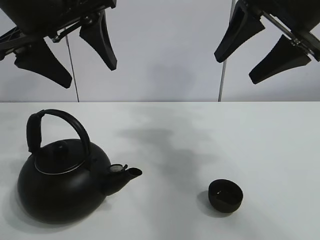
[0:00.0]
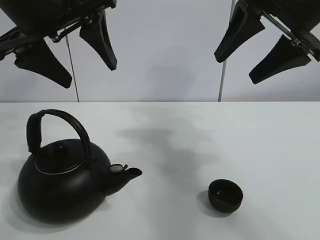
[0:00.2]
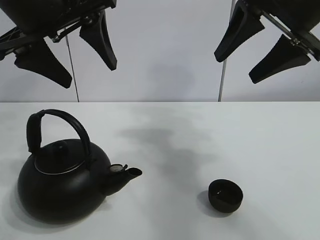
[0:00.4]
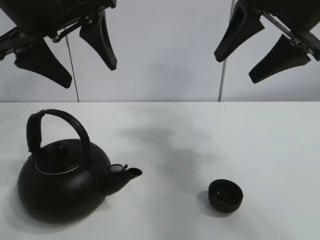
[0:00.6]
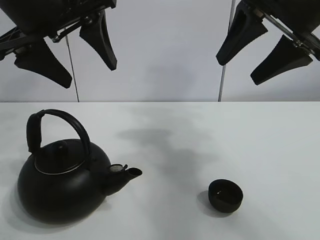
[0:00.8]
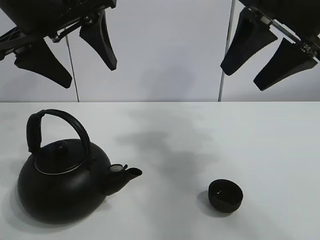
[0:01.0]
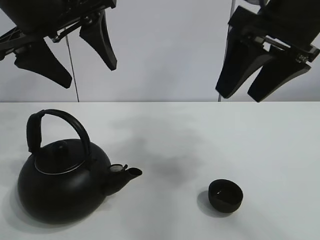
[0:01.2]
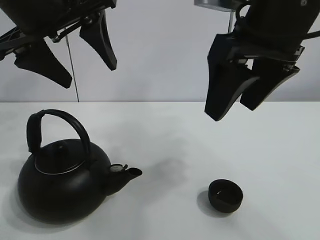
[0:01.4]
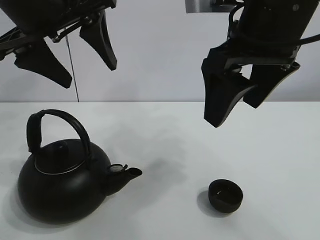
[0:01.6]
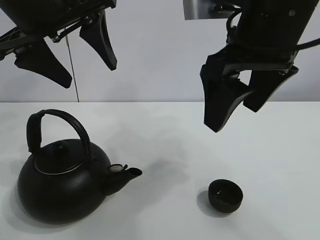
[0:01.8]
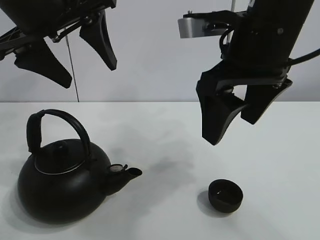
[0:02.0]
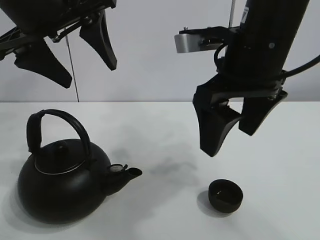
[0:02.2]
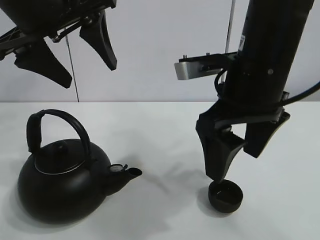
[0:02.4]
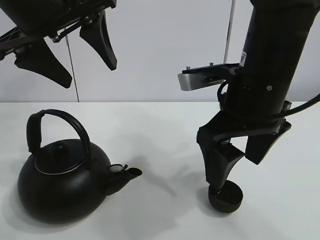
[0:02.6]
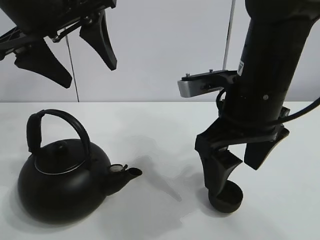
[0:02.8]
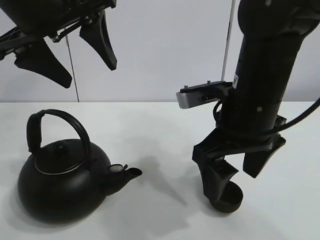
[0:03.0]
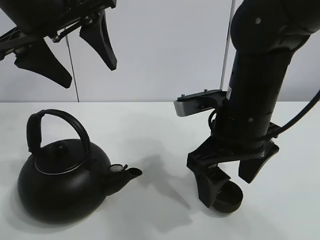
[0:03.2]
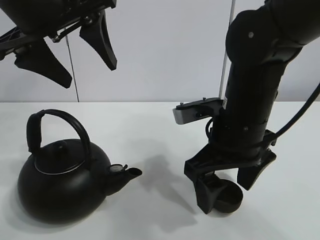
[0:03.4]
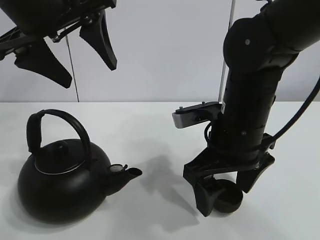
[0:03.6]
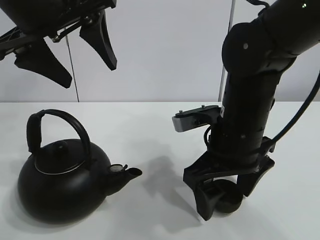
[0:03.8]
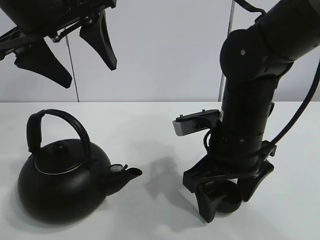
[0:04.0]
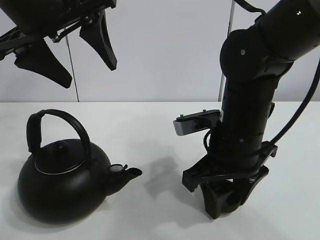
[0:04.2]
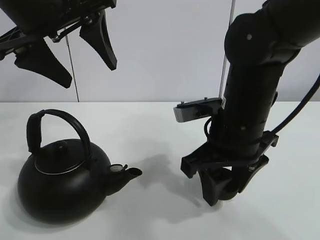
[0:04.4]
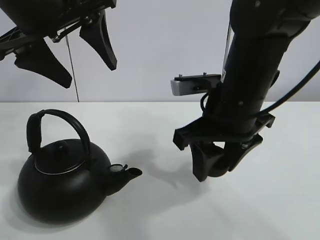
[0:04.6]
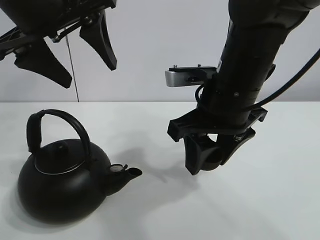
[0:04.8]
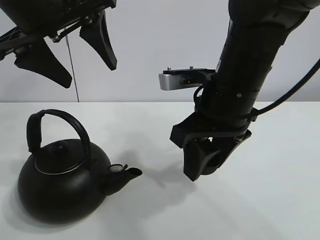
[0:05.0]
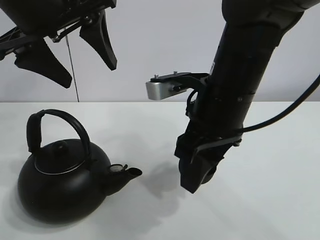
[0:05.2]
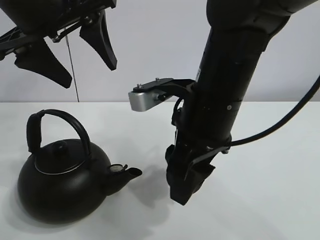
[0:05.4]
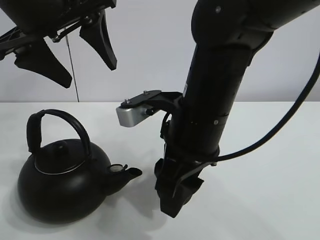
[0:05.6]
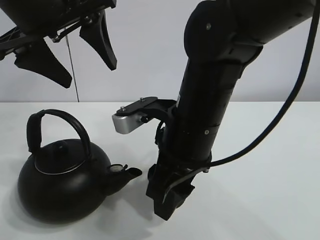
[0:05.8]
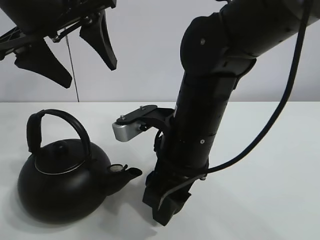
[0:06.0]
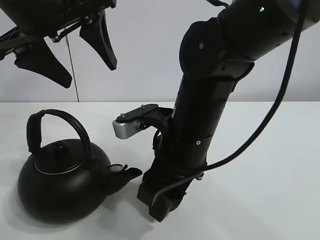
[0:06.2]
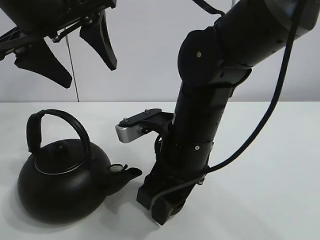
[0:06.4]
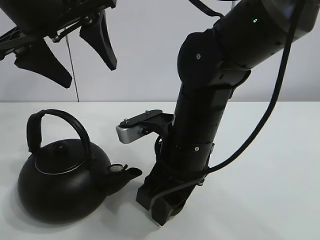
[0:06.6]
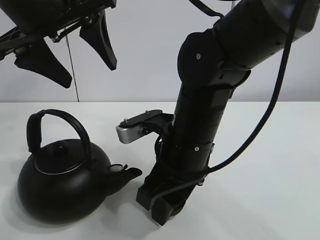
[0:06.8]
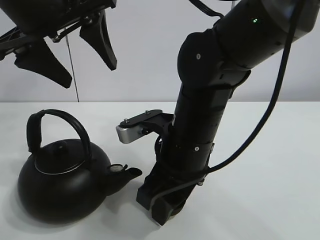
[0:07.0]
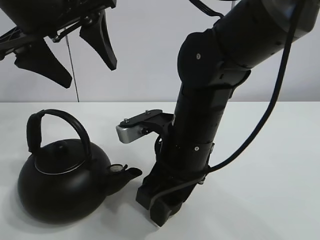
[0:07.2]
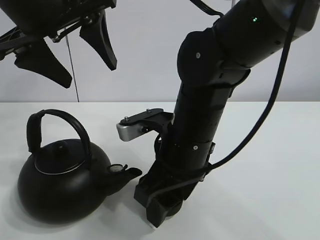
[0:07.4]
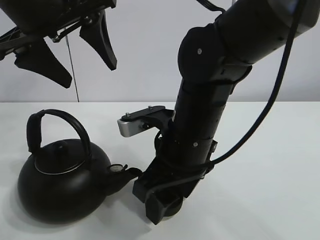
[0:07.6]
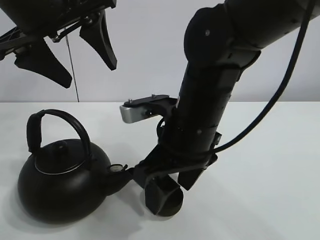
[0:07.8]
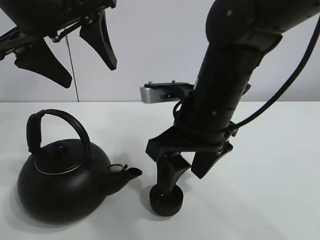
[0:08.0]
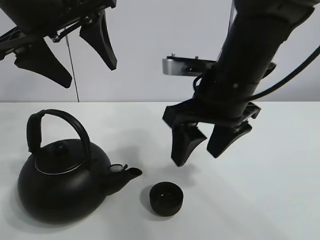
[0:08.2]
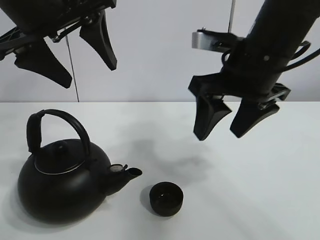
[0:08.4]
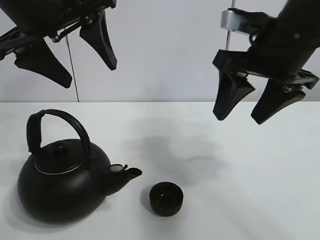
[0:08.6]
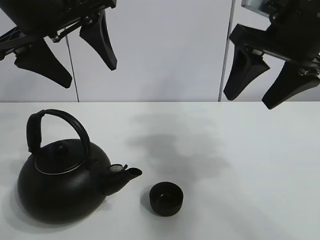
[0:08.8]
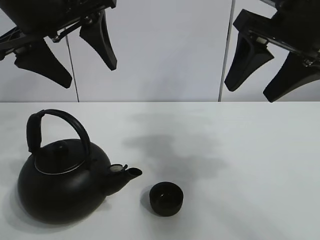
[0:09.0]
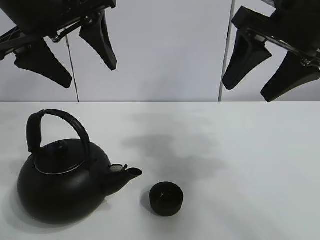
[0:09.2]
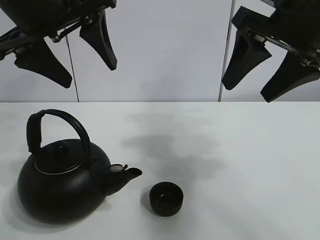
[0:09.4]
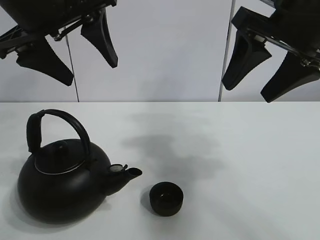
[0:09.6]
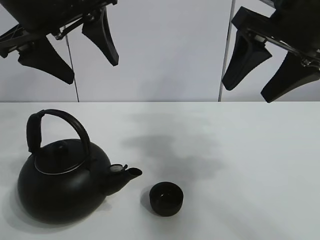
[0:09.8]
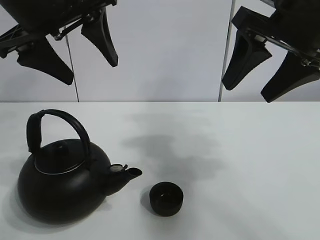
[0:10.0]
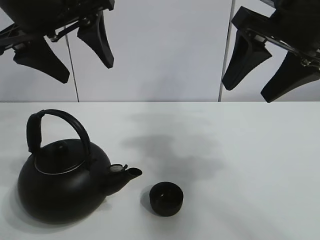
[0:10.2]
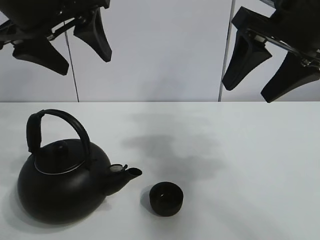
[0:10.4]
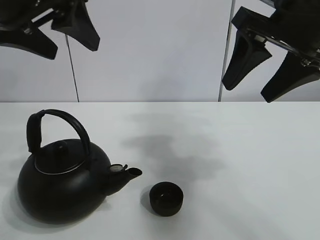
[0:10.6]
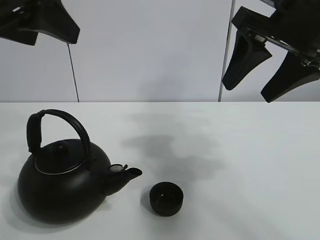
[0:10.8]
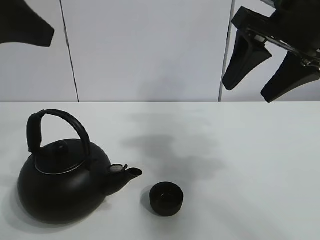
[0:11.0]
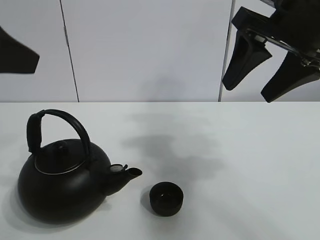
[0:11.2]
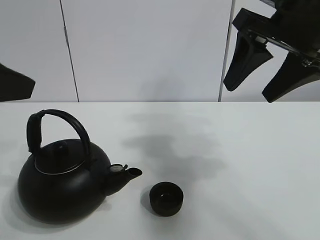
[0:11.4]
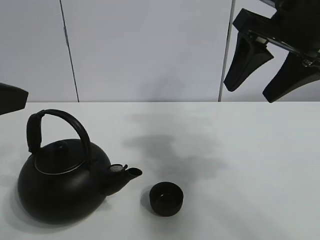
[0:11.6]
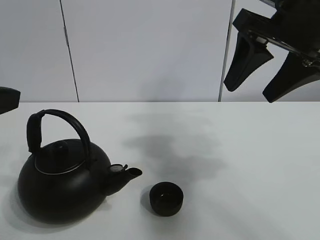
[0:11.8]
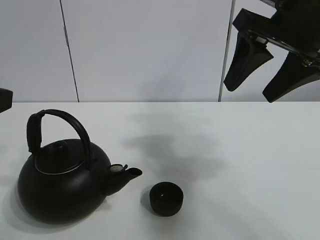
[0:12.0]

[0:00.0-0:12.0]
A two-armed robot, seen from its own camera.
Task of the whole recording: pour tea into the teacup.
Step, 0:00.0 to 0:04.0: Pick up the teacup with the right gripper.
Step, 0:04.4 to 0:07.4: Place the teacup in the center of view with the right gripper.
0:01.6 to 0:03.0: The right gripper heads downward, covering some 10 cm.
0:03.0 to 0:04.4: The right gripper closes up.
0:04.4 to 0:06.0: The right gripper is displaced to the left by about 5 cm.
0:06.0 to 0:07.6: The right gripper opens.
0:07.6 to 0:09.0: The right gripper goes approximately 20 cm upward and to the right.
0:09.0 to 0:10.4: There are only small adjustments of the grippers.
0:10.4 to 0:12.0: The left gripper shifts about 20 cm backward, to the left and downward.

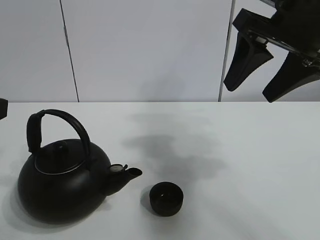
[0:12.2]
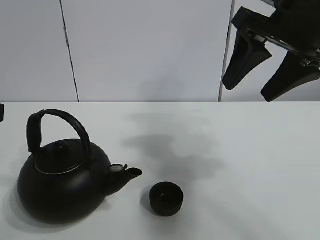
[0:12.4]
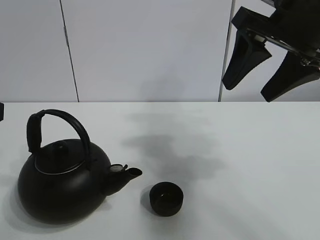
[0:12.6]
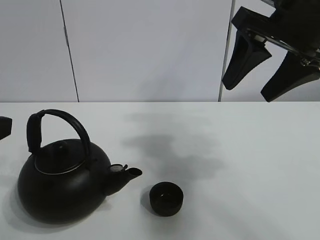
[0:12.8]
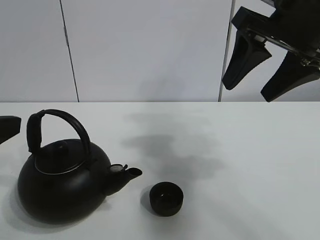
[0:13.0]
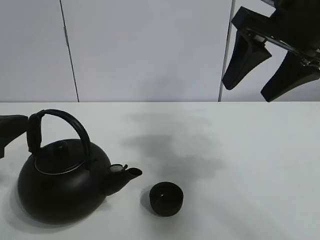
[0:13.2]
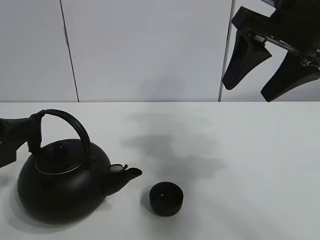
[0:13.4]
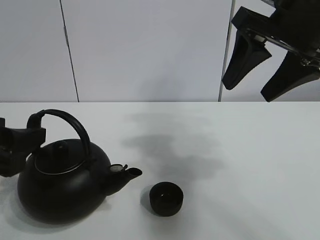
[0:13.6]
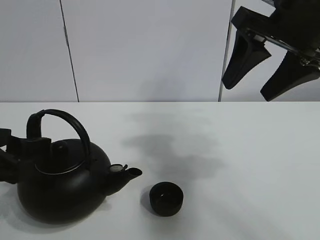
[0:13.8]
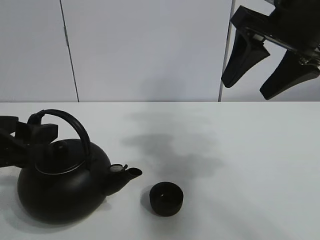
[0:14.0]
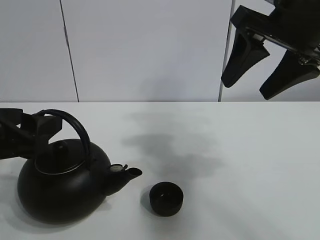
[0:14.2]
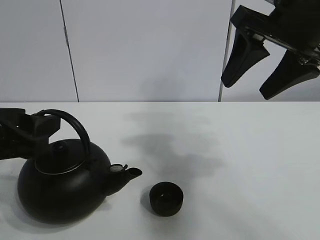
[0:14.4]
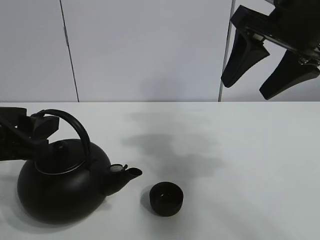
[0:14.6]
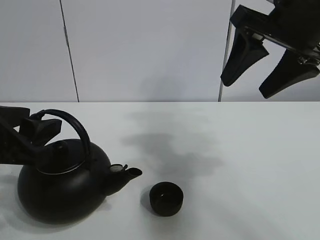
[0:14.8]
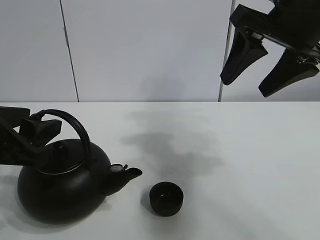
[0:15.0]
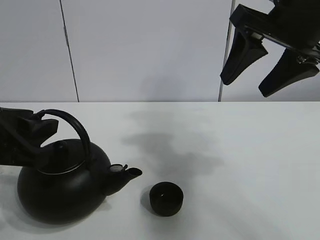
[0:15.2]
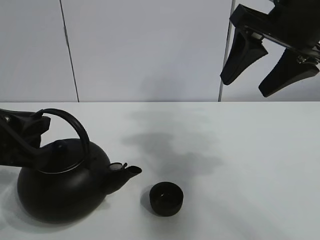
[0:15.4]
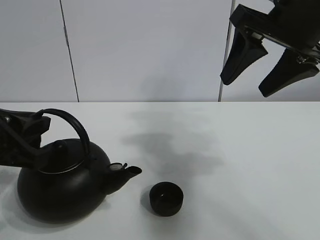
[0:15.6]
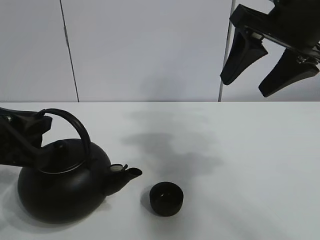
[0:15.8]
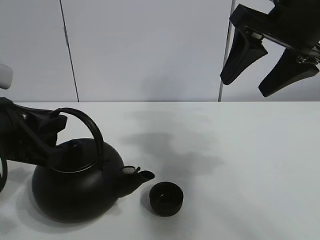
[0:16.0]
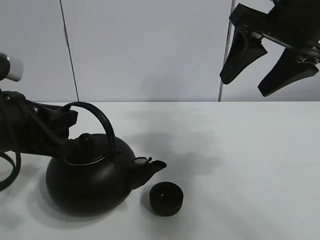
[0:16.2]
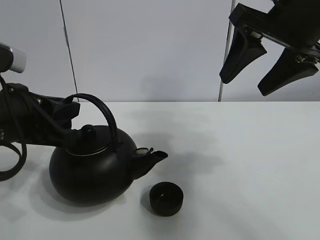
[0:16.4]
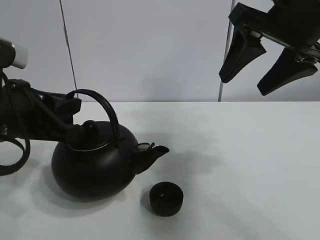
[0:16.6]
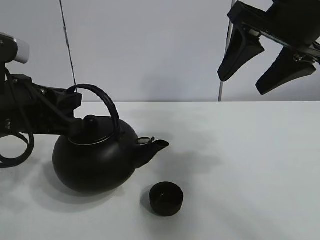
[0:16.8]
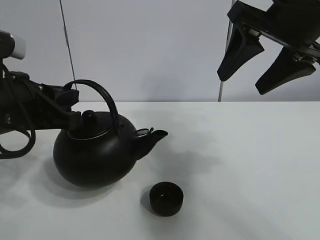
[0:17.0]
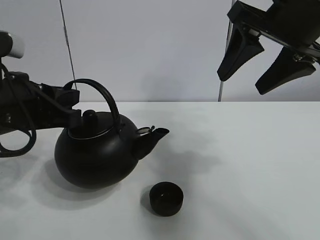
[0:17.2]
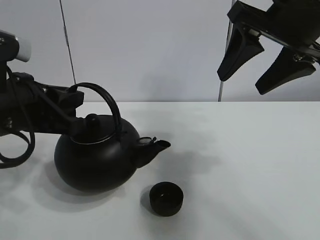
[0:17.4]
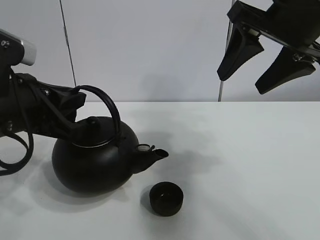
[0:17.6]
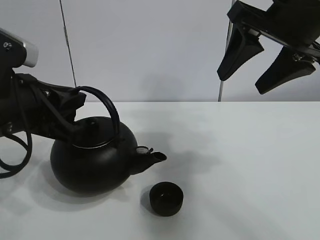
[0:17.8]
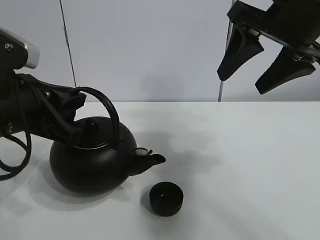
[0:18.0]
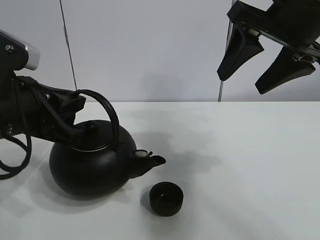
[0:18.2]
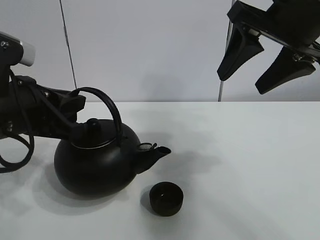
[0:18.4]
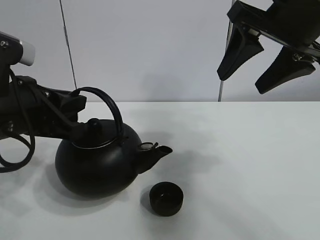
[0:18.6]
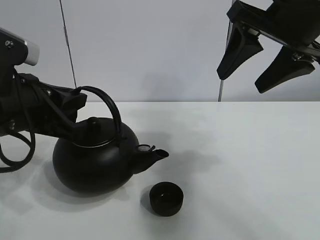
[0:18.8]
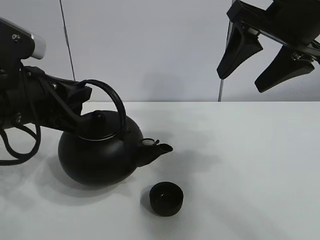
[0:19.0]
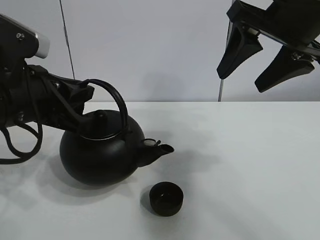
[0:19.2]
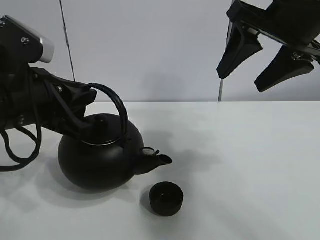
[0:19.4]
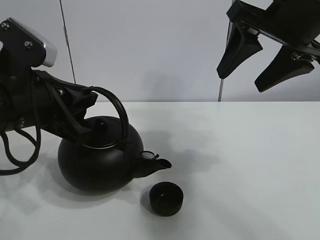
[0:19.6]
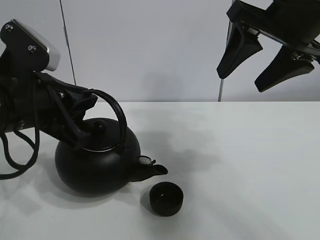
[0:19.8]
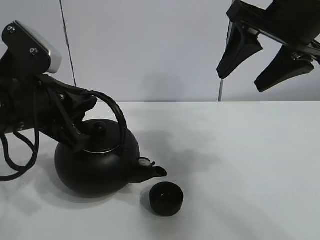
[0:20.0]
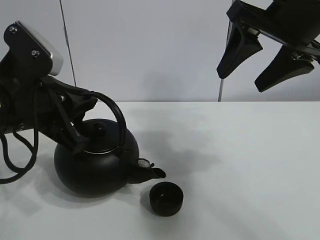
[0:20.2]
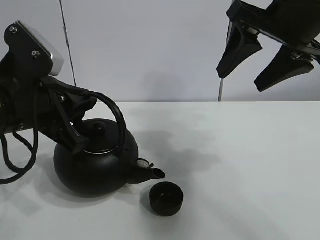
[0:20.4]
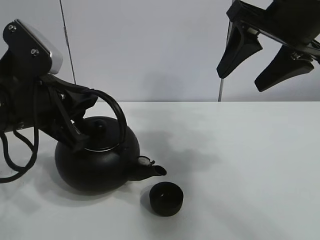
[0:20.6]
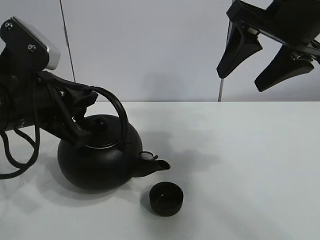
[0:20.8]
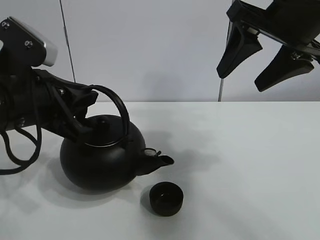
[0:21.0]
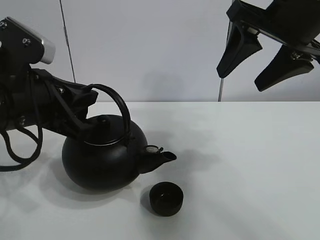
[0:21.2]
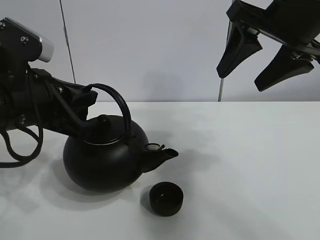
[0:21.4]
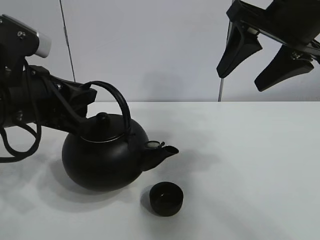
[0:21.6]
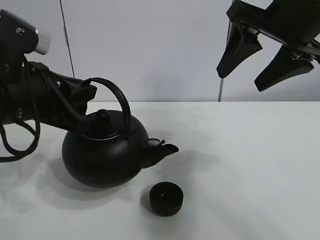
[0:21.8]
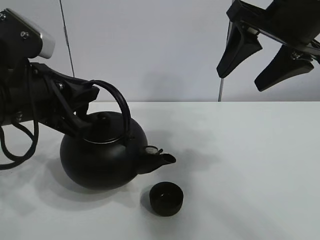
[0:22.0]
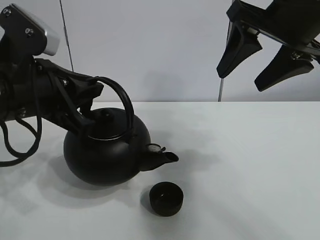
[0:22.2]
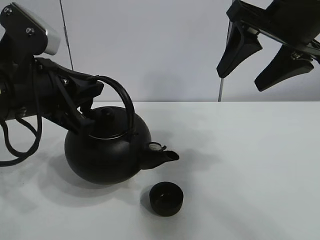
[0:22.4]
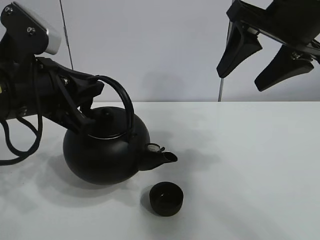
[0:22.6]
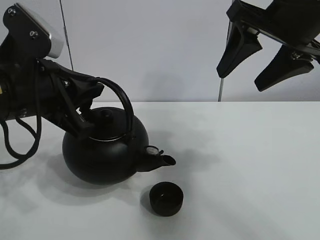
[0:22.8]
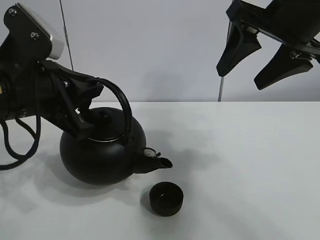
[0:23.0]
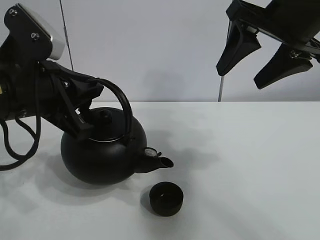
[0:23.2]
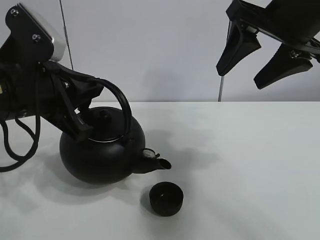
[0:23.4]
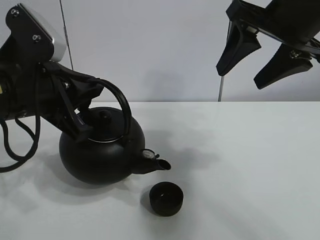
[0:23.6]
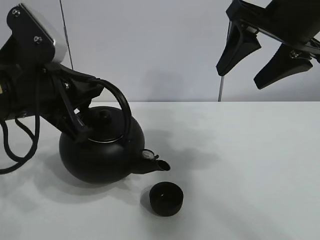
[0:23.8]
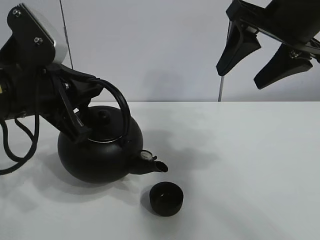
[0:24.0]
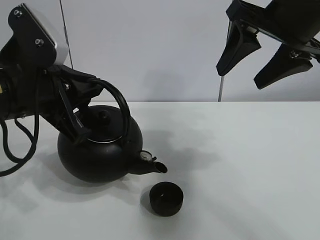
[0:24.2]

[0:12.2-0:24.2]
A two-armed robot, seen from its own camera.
Task of the whole recording: pour tea into the teacup.
Step, 0:12.2 to 0:15.6: Pick up the teapot with the left gripper.
0:12.2 to 0:13.8: The left gripper heads downward, covering approximately 10 cm.
0:13.8 to 0:15.2: The grippers stay close to where they were, moving slightly.
0:15.2 to 0:16.6: The left gripper closes its fingers.
0:16.6 to 0:19.8: The grippers move only a little.
0:19.8 to 0:21.2: Both grippers stay about where they are.
0:21.2 to 0:24.2: The grippers stay close to where they were, moving slightly.
